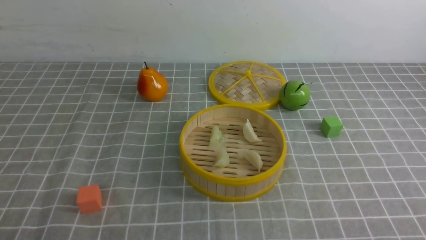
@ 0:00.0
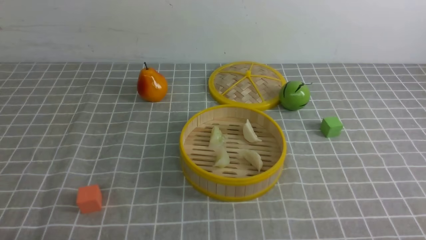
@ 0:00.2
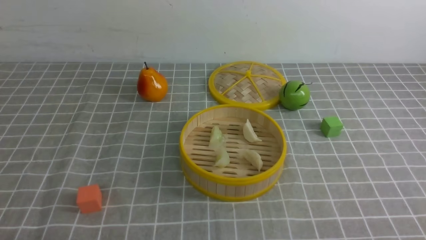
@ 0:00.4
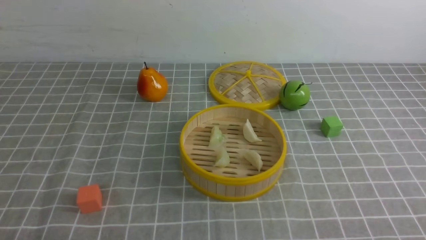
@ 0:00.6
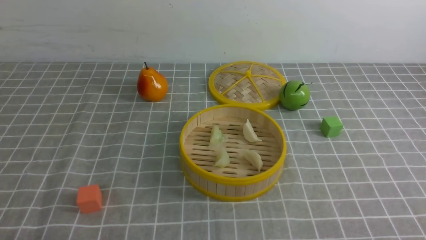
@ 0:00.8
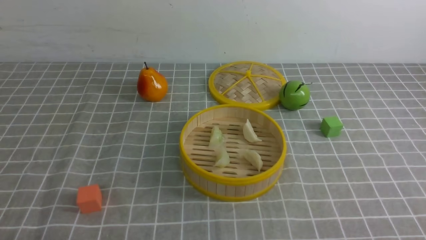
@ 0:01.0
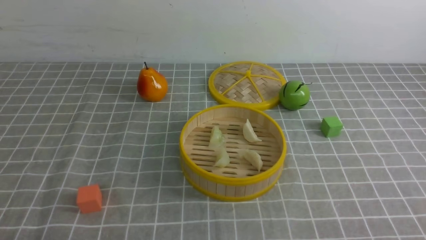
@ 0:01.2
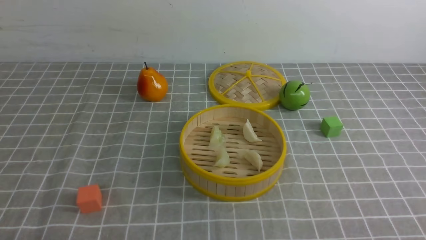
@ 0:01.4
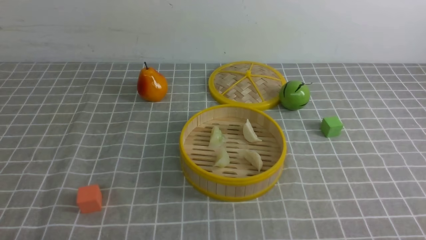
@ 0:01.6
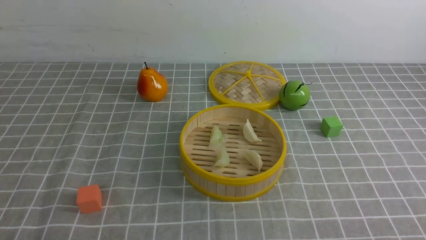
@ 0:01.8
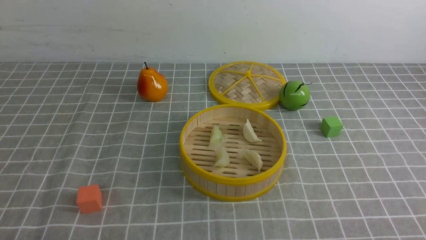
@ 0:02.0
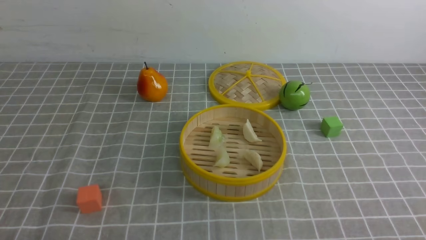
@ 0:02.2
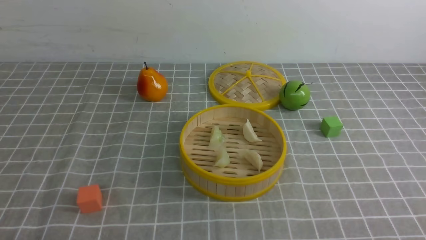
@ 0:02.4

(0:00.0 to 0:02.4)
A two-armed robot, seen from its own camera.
Task of the whole recording: put the dumplings into the steamer on the table with the grey tablecloth.
0:01.2 - 0:02.4: Both grippers stay put.

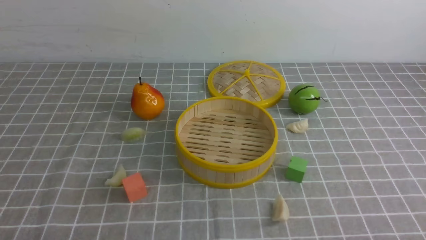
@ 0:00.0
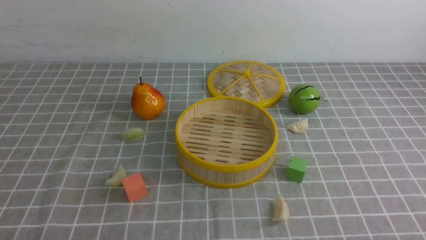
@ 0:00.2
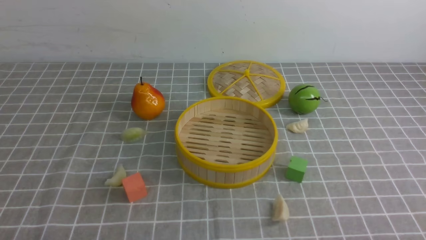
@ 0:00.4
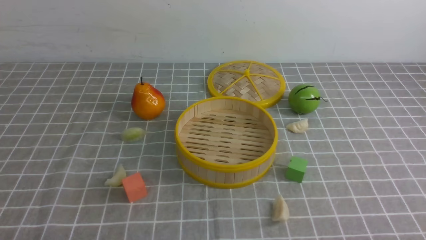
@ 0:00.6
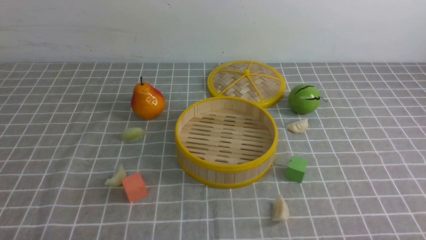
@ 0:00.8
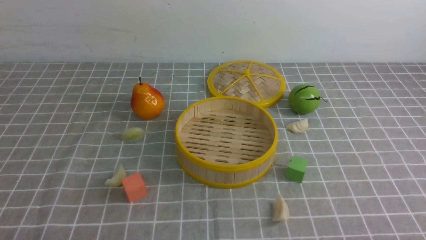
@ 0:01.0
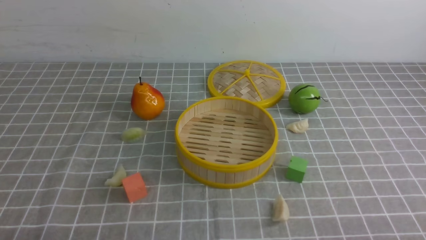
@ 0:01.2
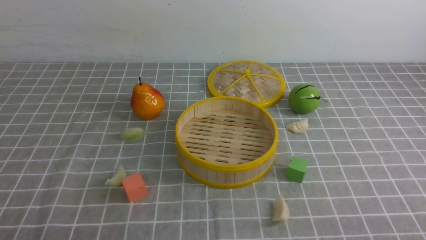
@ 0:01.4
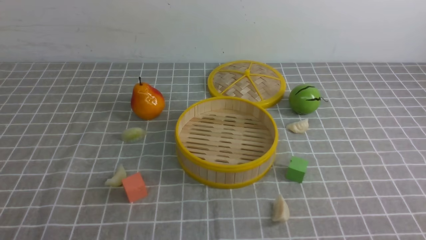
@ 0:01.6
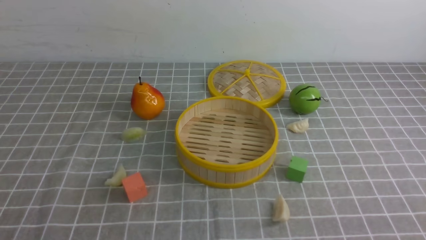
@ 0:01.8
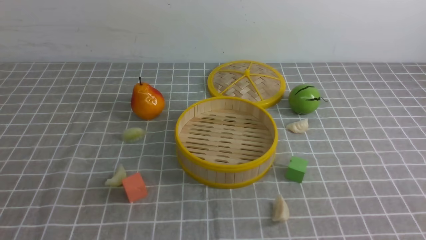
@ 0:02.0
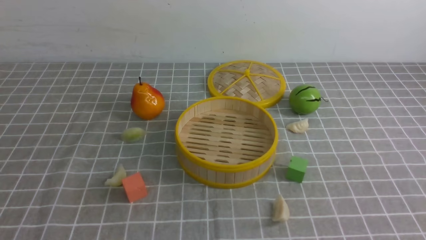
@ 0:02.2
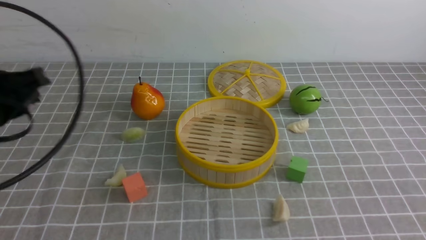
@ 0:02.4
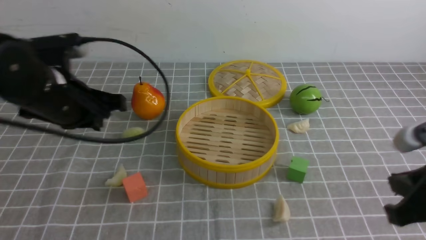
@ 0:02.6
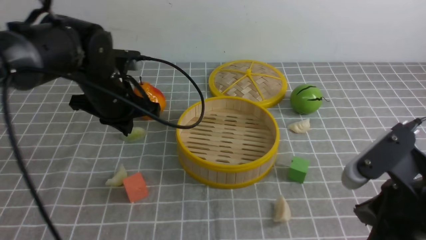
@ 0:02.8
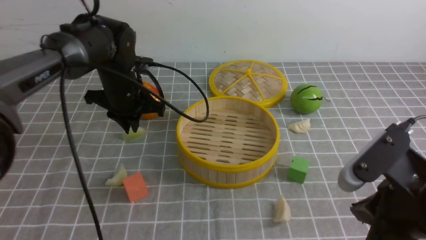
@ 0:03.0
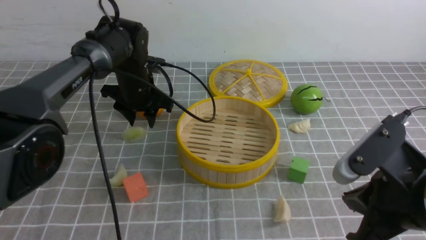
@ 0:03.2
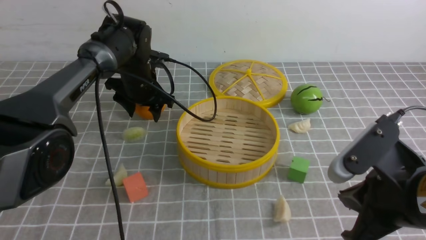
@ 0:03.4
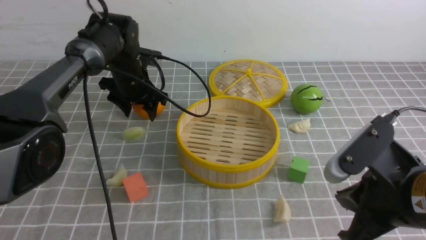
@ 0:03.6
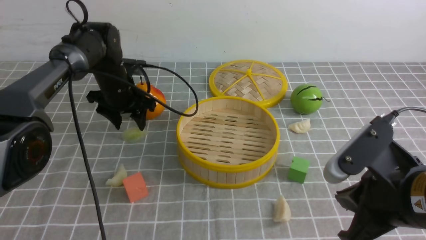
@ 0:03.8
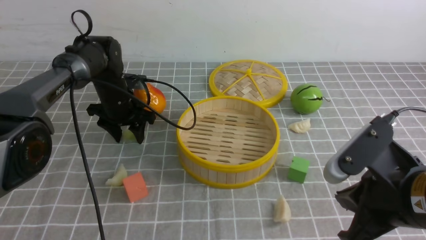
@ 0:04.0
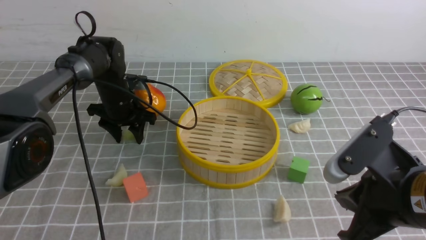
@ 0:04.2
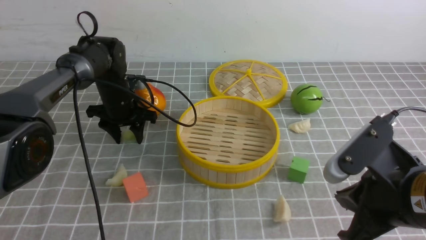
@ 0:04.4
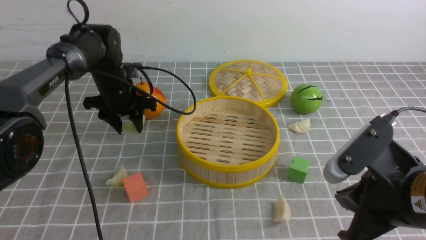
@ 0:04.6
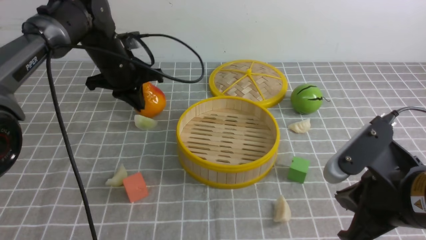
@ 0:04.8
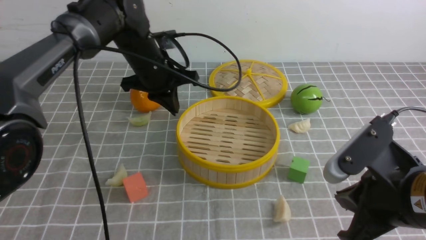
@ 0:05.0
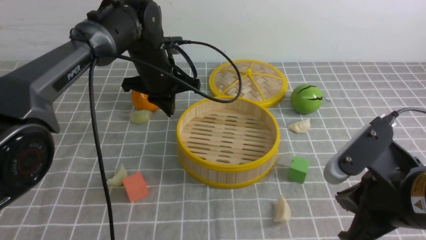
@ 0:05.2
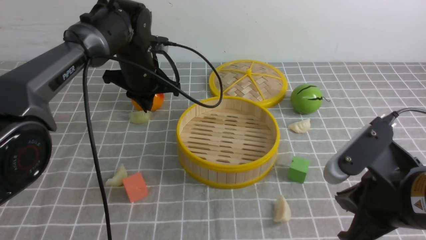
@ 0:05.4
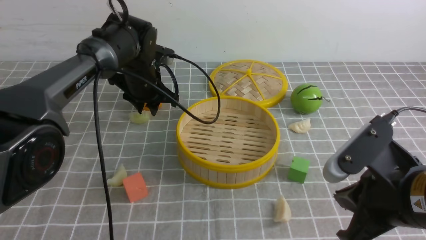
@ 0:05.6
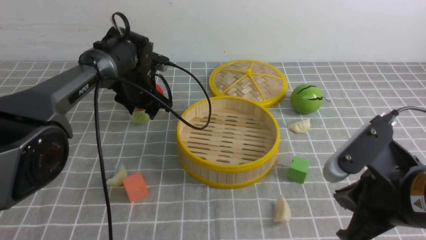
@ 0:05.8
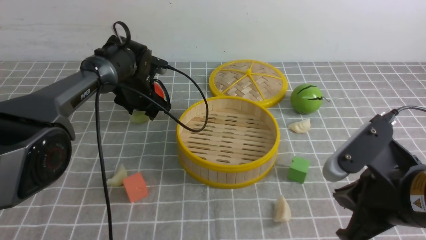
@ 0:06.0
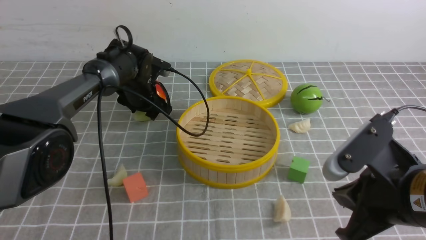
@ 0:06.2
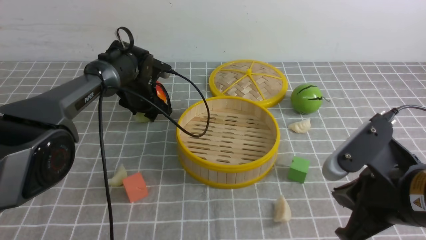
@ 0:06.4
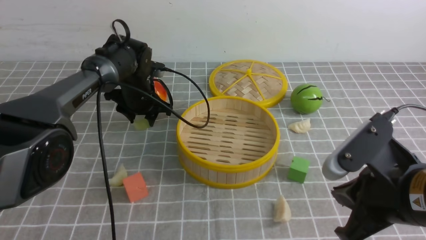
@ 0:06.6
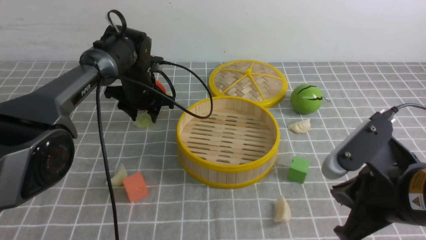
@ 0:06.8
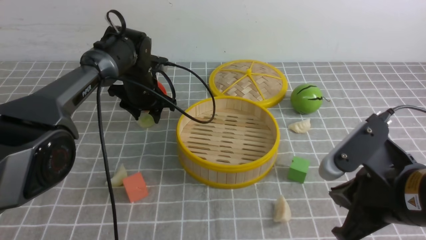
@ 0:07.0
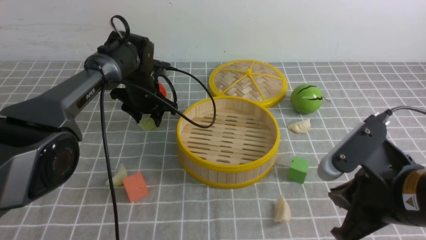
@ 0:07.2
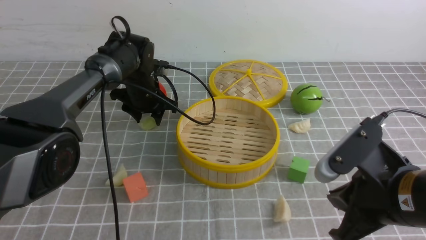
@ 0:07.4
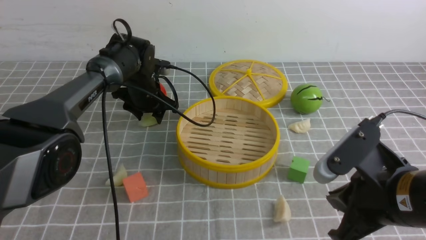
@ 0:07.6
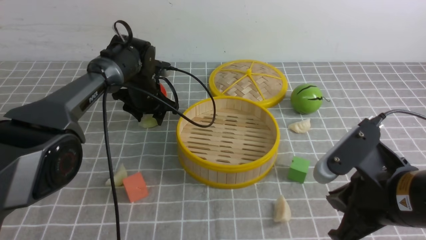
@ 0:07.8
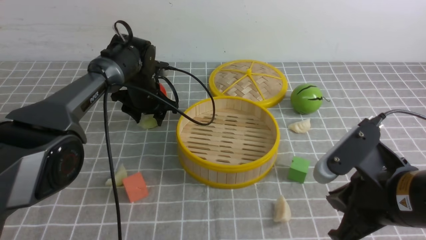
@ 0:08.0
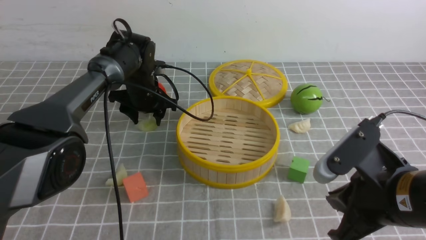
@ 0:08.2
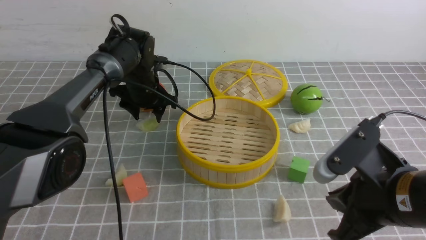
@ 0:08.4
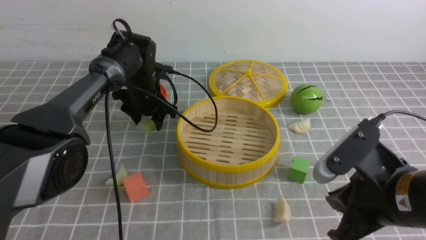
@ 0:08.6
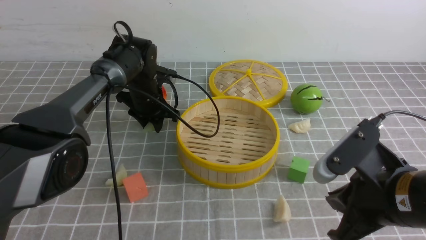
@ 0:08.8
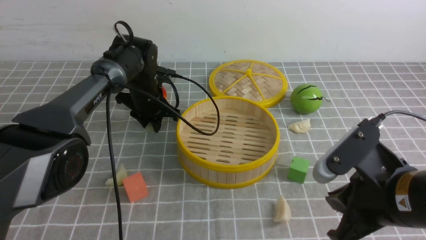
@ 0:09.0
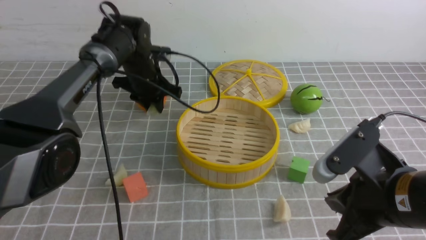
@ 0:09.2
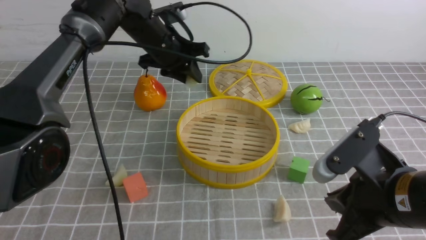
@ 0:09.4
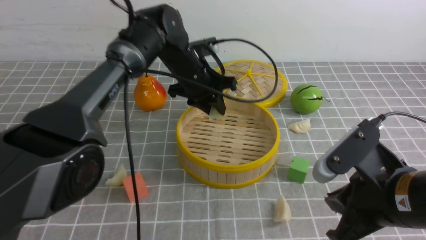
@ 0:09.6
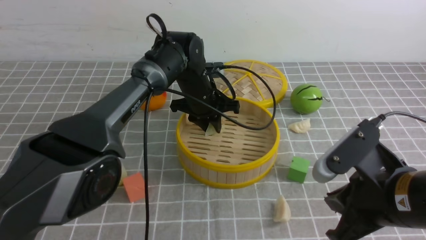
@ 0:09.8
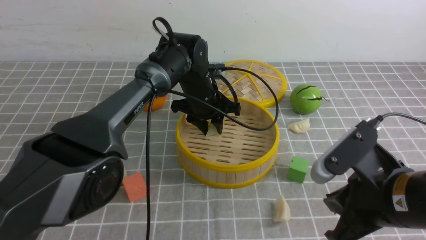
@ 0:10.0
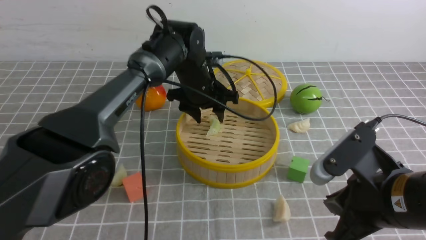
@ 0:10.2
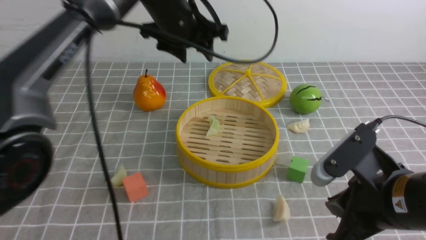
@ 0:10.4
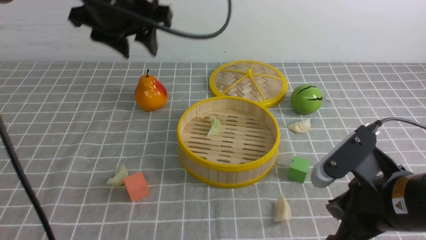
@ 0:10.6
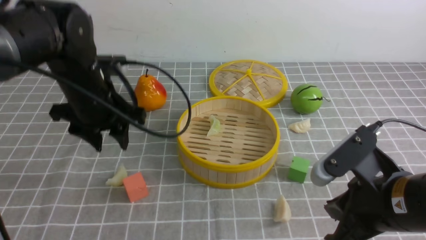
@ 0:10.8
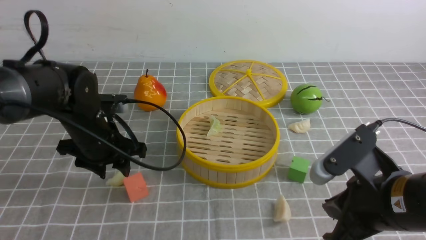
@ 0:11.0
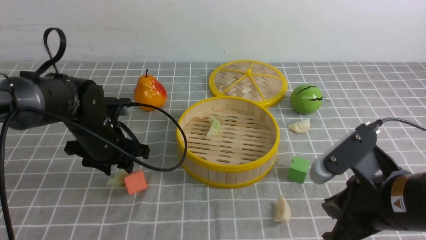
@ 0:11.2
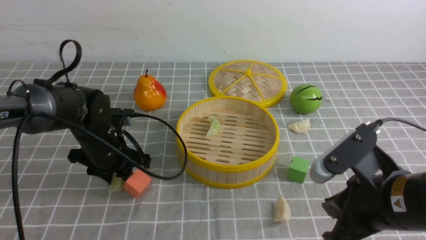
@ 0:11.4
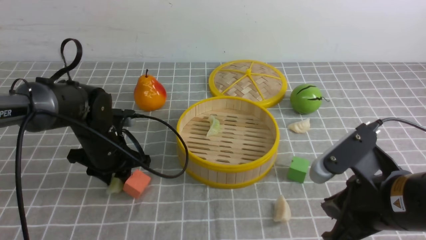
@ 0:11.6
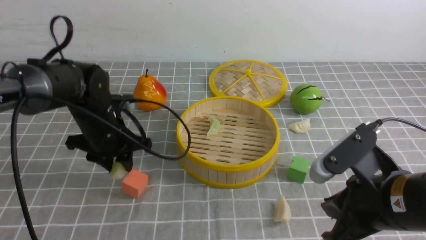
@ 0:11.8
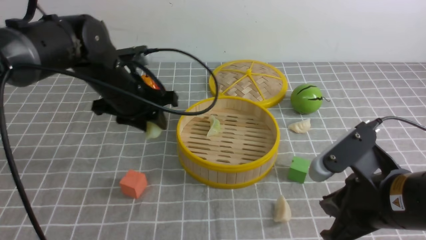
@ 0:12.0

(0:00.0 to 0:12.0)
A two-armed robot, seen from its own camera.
Task of the whole recording: put the dumplings into the steamer on the table with the grey tablecloth.
Step, 0:00.0 - 0:09.0: use the left arm to grab a dumpling.
Step, 0:09.2 - 0:10.2: use the left arm to put the dumpling into the steamer.
Step, 0:10.4 - 0:11.6: use the left arm to grab a dumpling.
0:01.6 - 0:03.0: The right gripper is displaced forward and to the left by about 15 cm, and closes. Meanwhile the left gripper is displaced forward by approximately 40 cm.
0:03.0 - 0:04.4: The left gripper is displaced downward by about 5 cm, and opens its fingers.
0:04.4 - 0:06.0: The left gripper reaches some 10 cm upward, then returns, and closes, then reopens.
0:06.0 - 0:07.6: The grippers make only small movements.
0:07.6 - 0:09.0: The left gripper closes.
0:09.0 - 0:10.4: The left gripper swings up and down, approximately 15 cm each way, with 2 reversals, and opens.
0:10.4 - 0:12.0: The left gripper heads downward, covering roughly 10 cm.

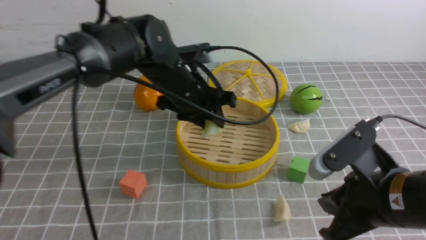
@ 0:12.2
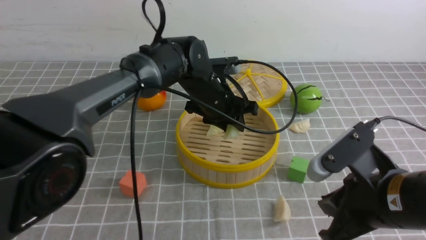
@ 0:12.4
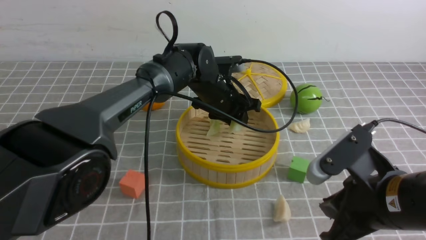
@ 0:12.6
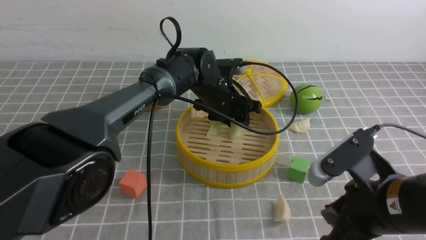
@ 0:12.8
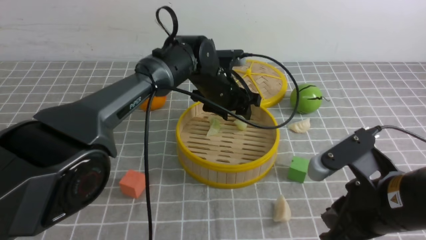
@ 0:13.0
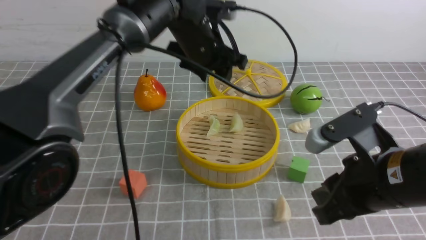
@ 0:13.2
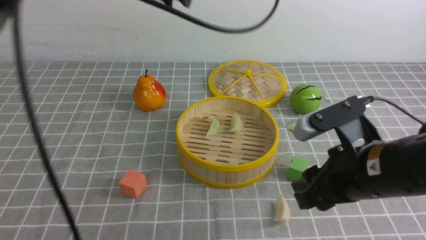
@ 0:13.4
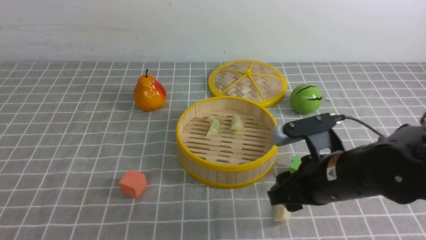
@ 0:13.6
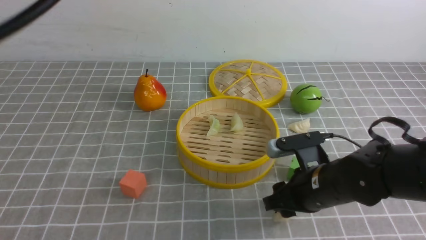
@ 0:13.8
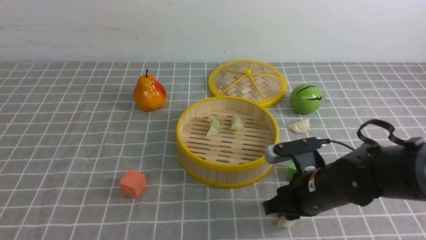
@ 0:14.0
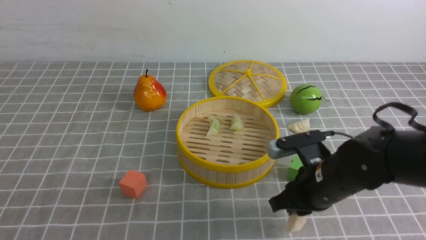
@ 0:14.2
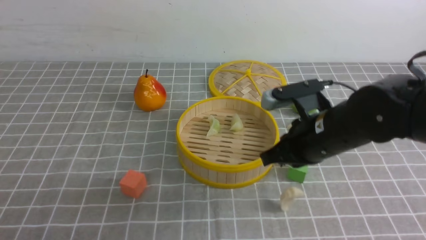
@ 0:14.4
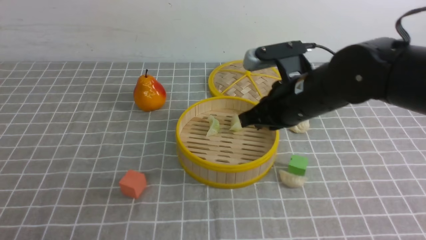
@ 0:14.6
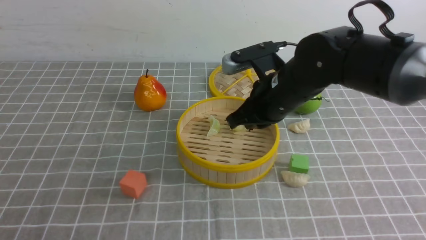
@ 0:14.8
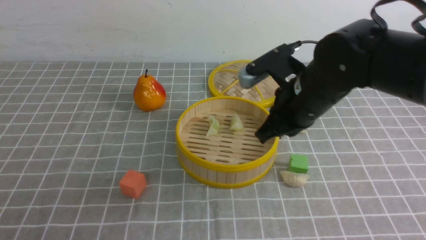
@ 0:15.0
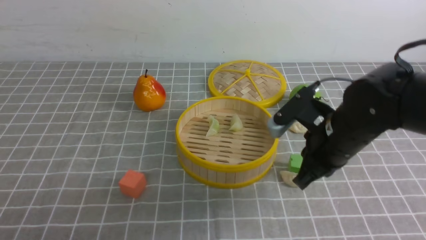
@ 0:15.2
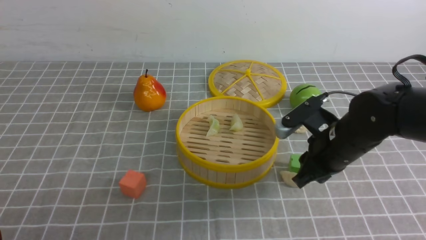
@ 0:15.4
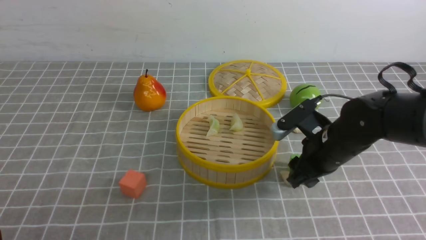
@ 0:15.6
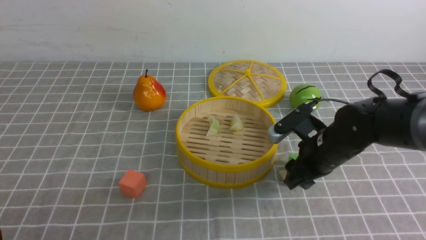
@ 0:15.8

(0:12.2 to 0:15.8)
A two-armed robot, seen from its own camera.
Task of the whole recording: put the dumplings into the steamer on the table with the grey tablecloth.
Step, 0:12.2 - 0:12.8: use the left arm to put the dumpling into the steamer.
0:12.2 - 0:14.0: The left gripper shifts approximately 40 cm backward, upward and to the left, and closes its fingers. Meanwhile the right gripper goes about 10 cm forward and downward, and opens up.
0:14.0 - 0:15.8: The right gripper is displaced forward by approximately 5 cm, moves about 10 cm upward and comes back, and closes, then opens again, while the left gripper moves downward, approximately 20 cm.
